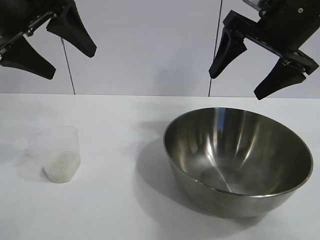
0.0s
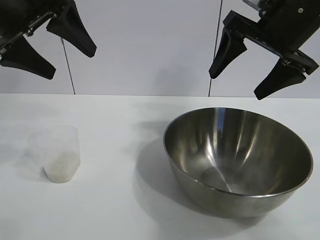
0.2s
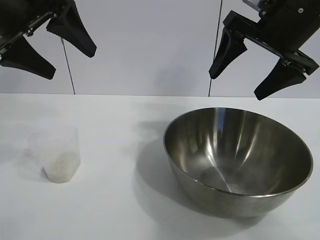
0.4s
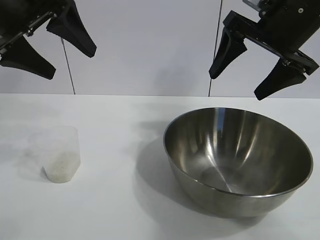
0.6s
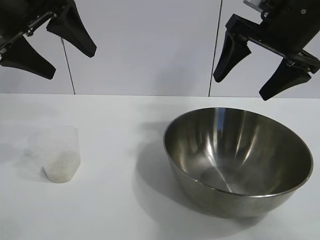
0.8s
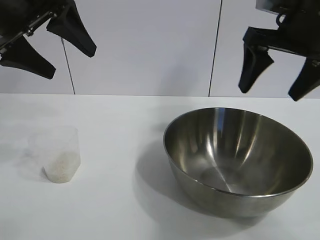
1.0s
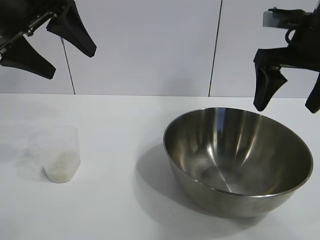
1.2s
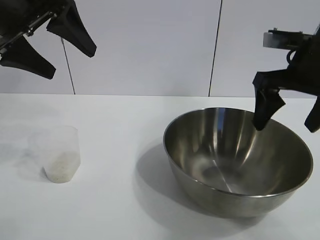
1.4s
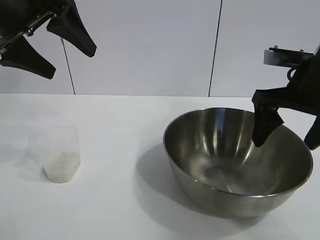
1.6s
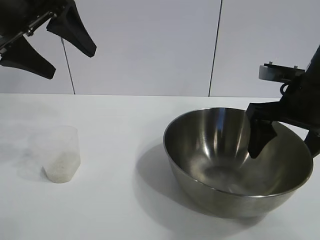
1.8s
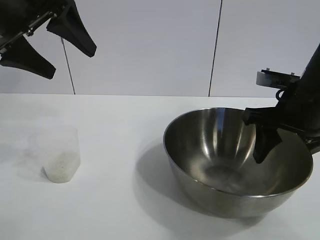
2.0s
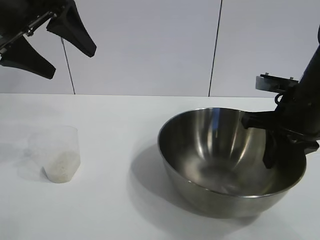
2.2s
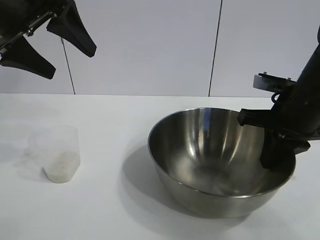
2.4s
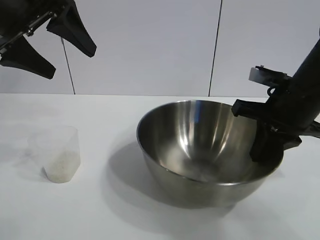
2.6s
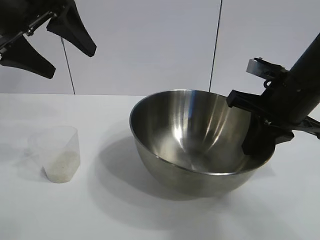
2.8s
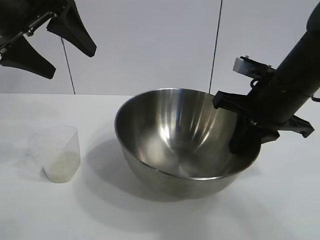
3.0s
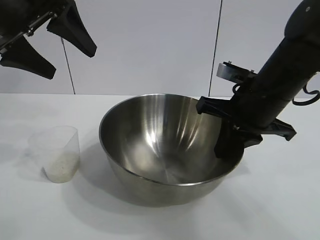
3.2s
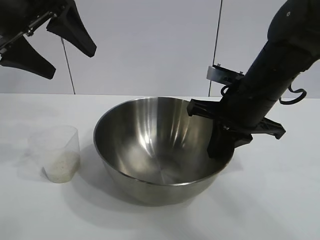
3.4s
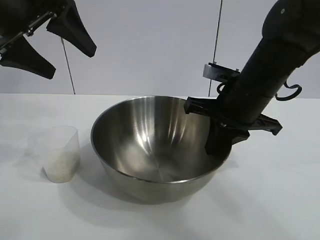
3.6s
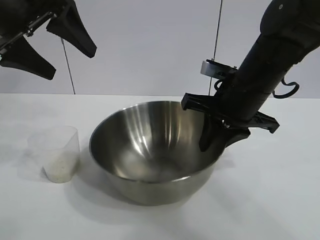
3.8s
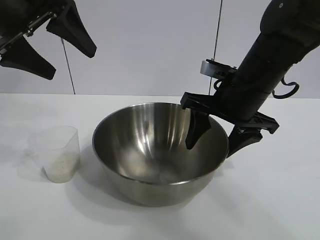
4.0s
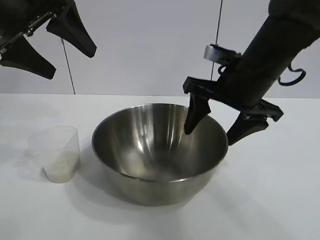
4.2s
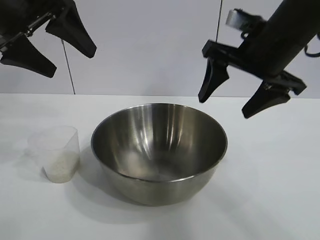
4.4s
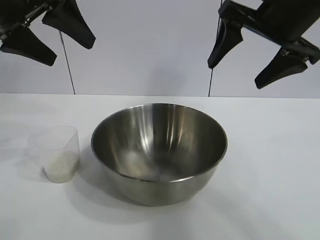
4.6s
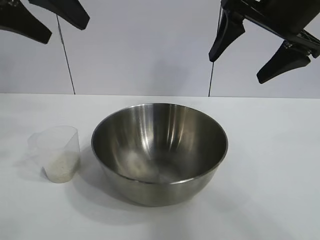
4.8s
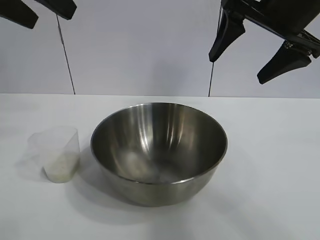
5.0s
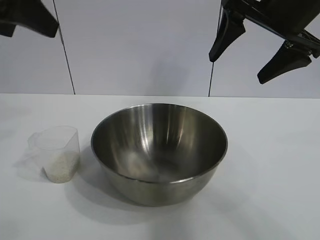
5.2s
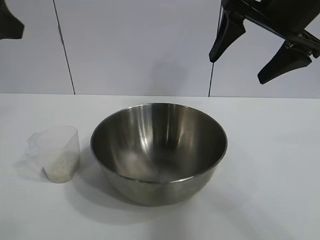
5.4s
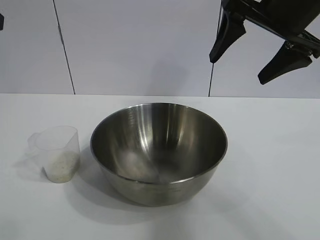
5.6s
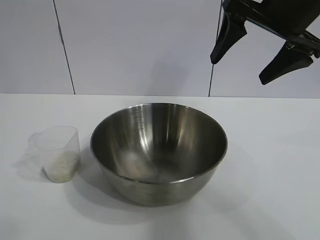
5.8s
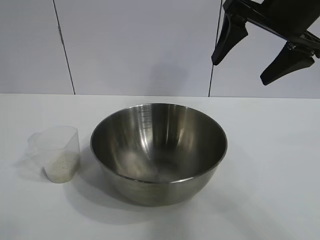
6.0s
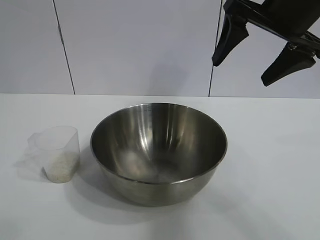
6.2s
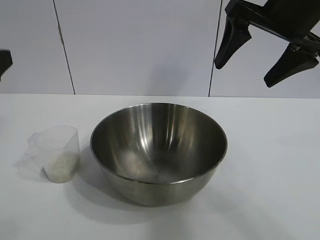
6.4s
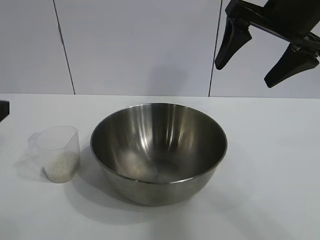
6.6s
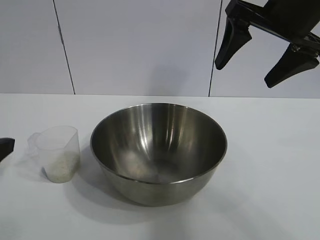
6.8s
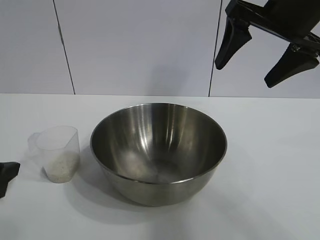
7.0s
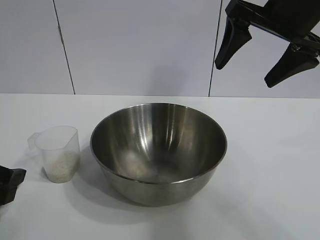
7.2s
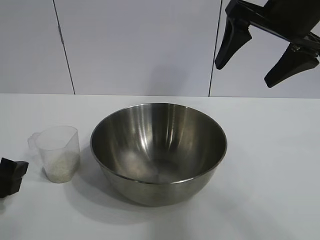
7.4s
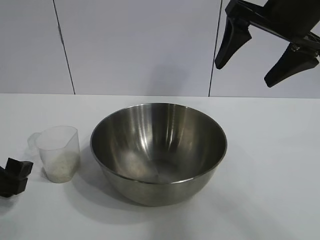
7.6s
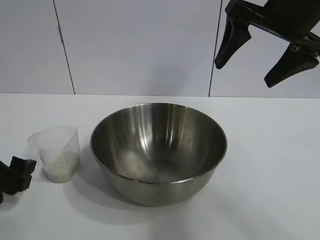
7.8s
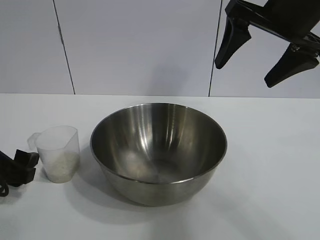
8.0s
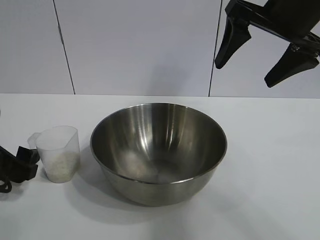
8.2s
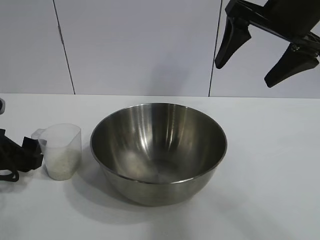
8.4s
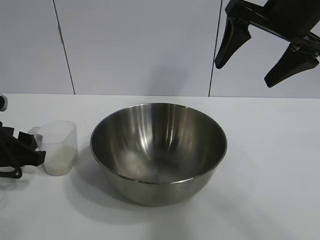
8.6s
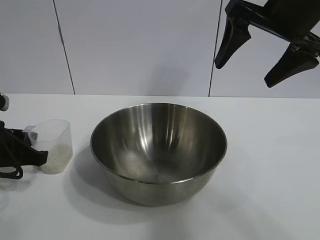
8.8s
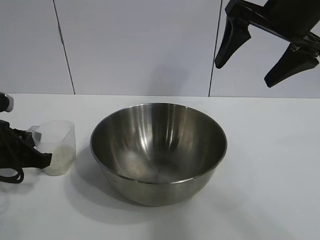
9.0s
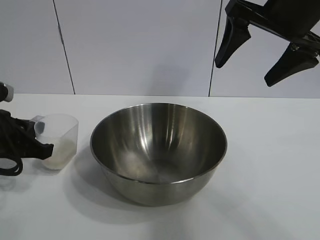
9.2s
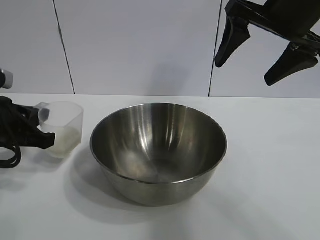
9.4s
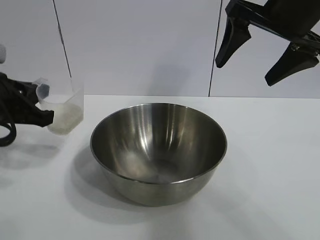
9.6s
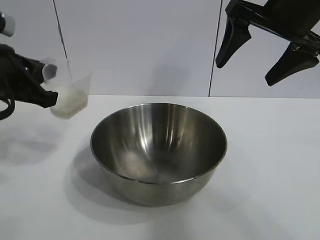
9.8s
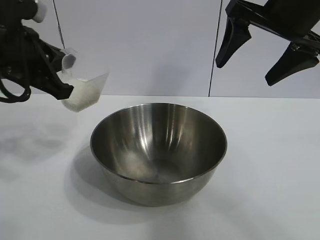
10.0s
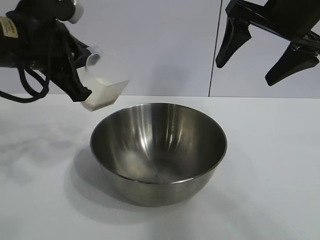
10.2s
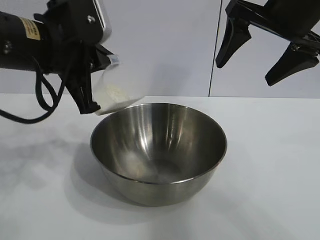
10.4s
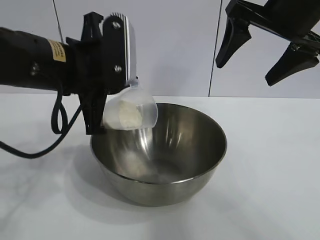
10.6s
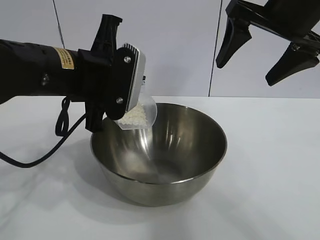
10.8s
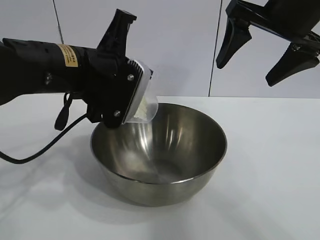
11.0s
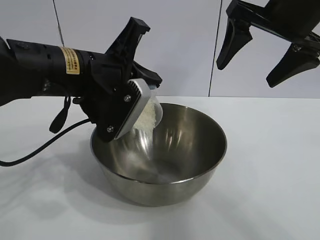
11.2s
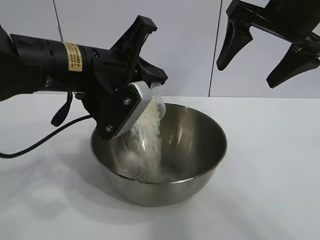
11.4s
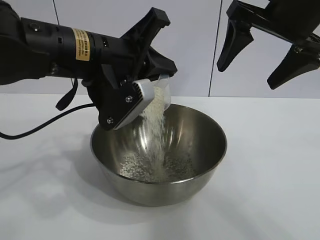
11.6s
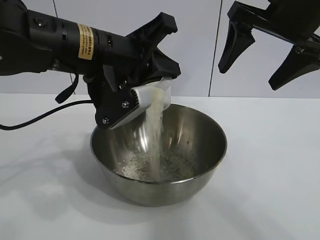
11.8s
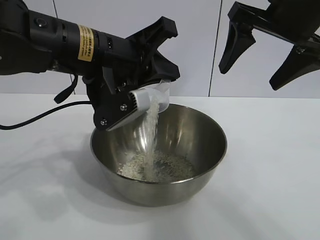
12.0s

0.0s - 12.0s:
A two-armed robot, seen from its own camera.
Task of the whole recording: the right gripper grasp the rice container and place it in the center of the table, the left gripper grasp the rice scoop and pour the rice into the rice container.
Step, 0.8s - 4.0s: Move the bowl in the center of view with right gripper.
Step, 4.2s - 9.0s: Grasp the cup with rice in it with left gripper.

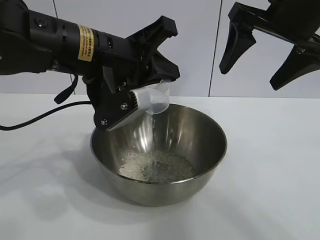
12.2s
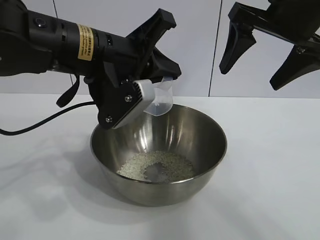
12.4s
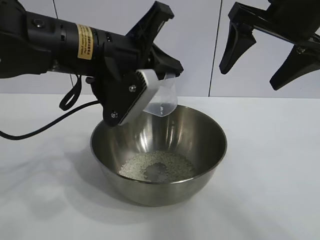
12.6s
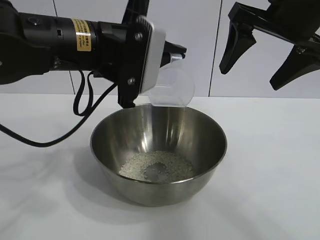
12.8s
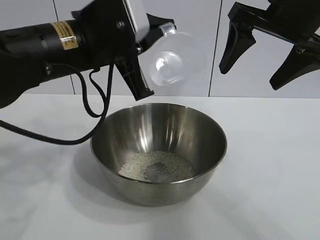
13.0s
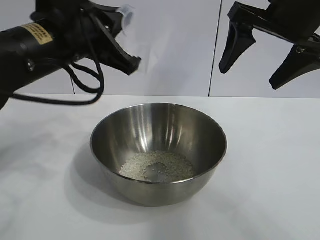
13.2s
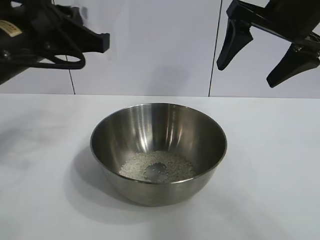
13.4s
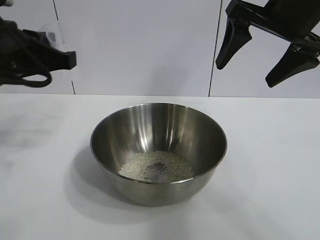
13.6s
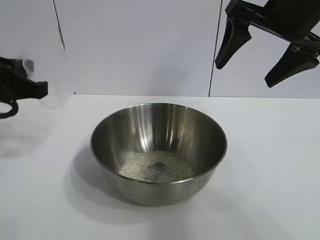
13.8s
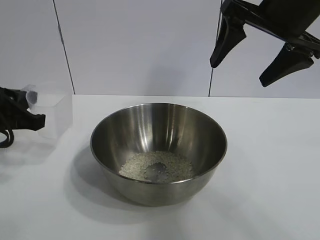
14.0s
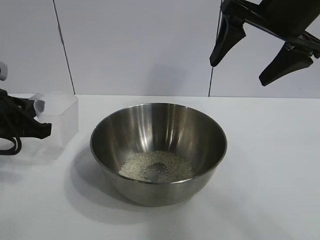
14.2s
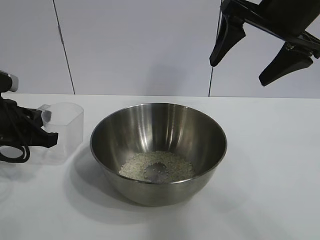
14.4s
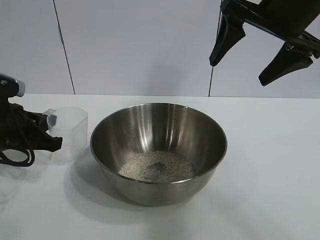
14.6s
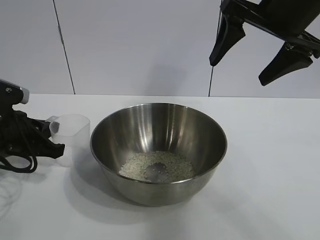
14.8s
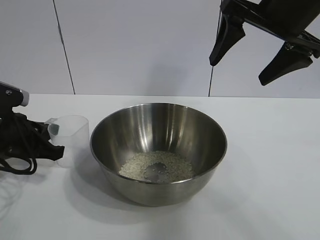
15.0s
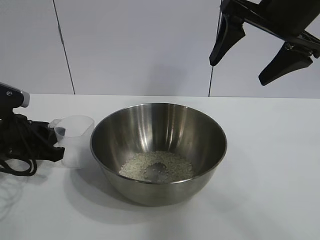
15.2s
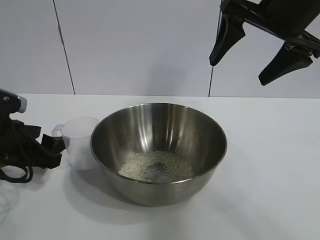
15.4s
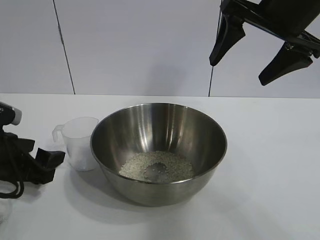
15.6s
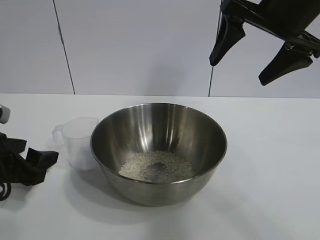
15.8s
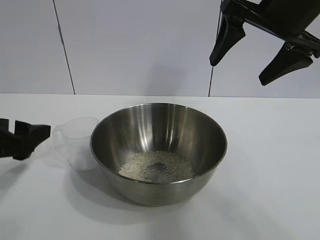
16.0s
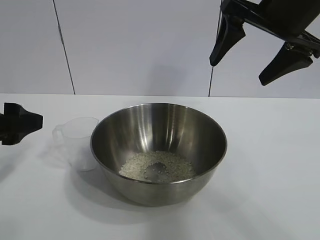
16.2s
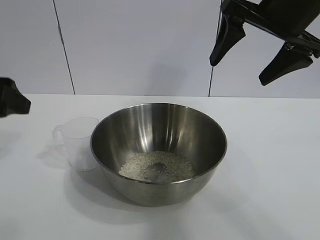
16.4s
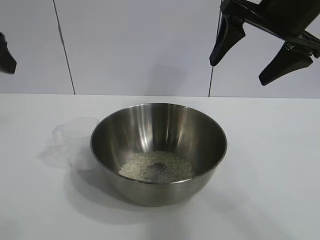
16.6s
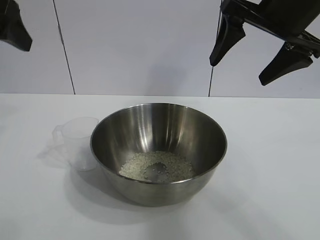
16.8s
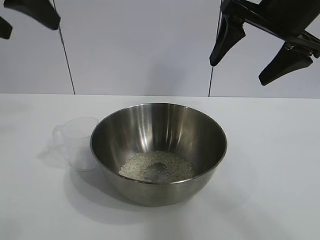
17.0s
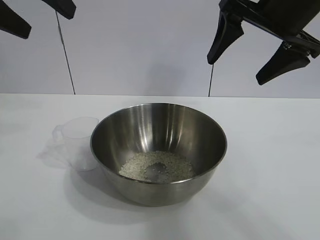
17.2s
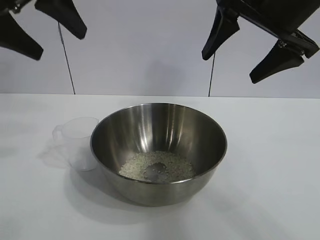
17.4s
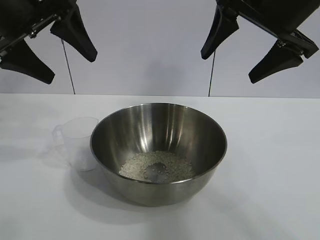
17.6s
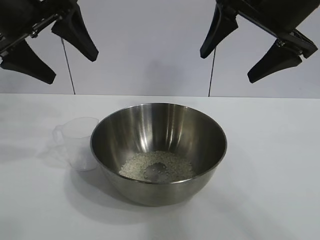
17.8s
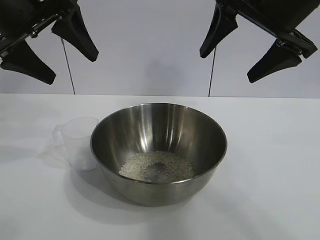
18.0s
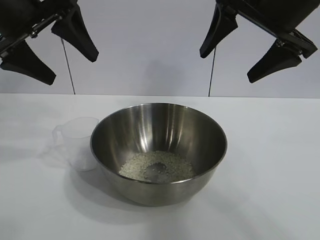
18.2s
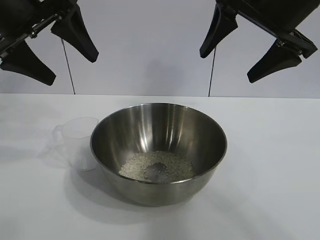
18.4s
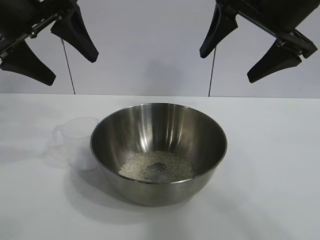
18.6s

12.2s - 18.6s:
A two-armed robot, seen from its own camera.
Task of the whole recording: the right gripper grasp the rice container and place it in the center of the table, the left gripper grasp the rice scoop and pour the rice into the rice container.
Step, 12.4s - 15.2s: Place the cup on the table with the left gripper.
